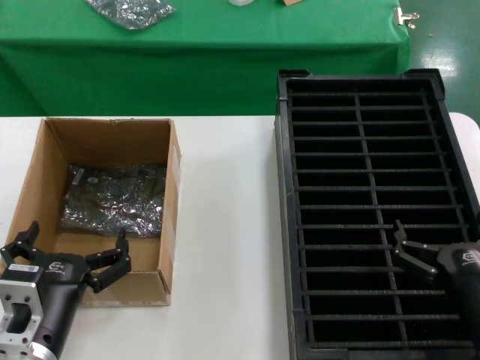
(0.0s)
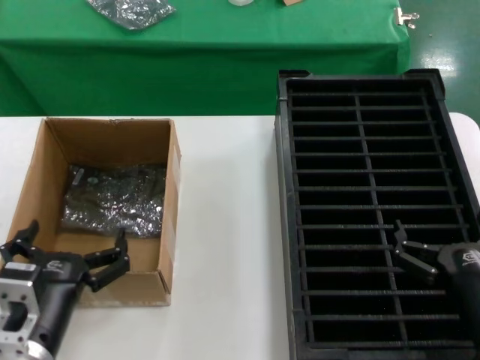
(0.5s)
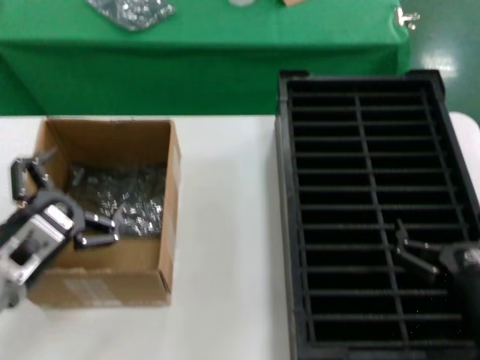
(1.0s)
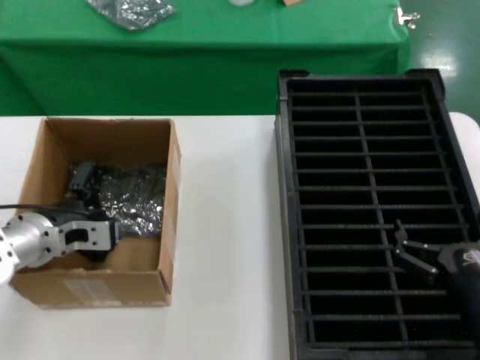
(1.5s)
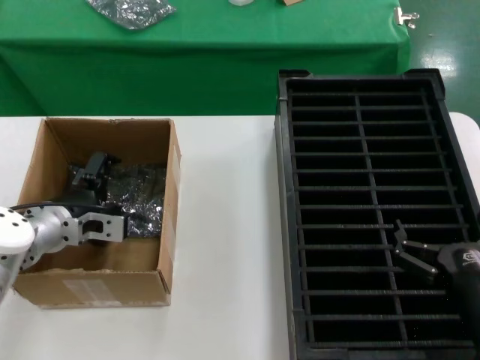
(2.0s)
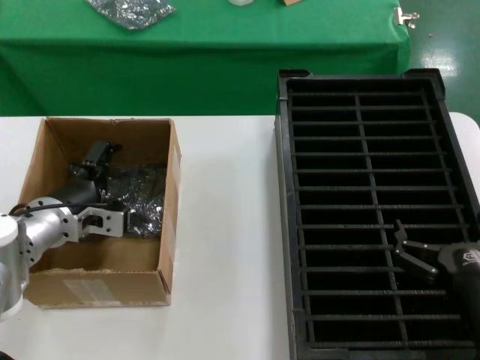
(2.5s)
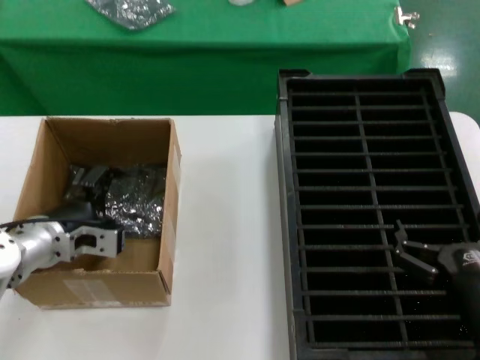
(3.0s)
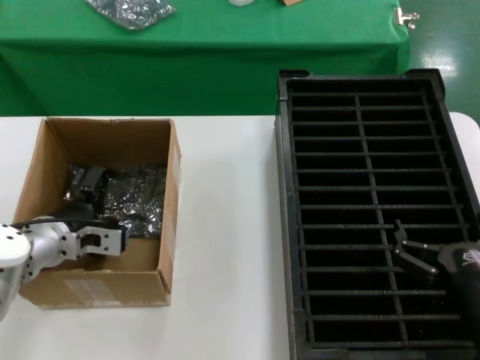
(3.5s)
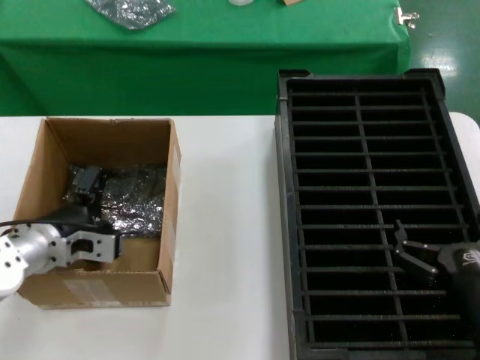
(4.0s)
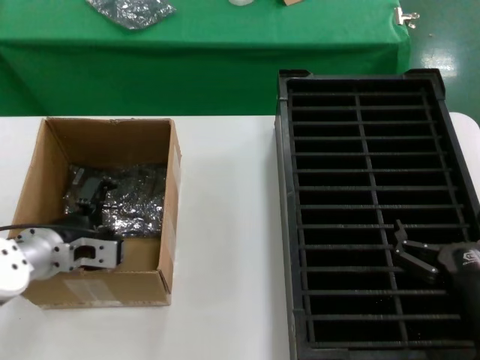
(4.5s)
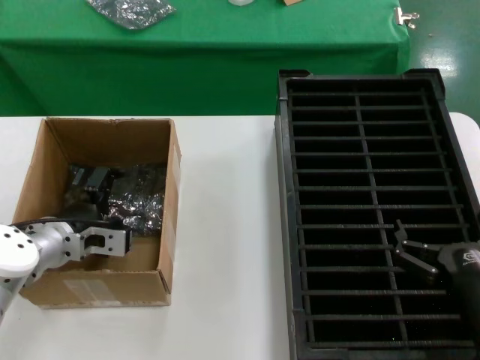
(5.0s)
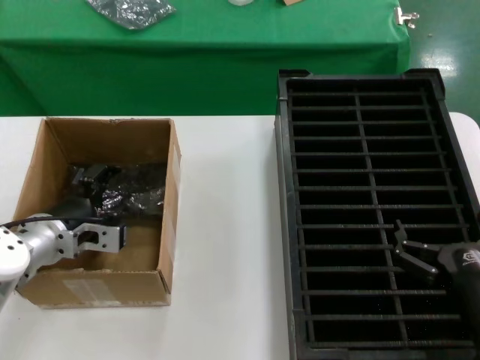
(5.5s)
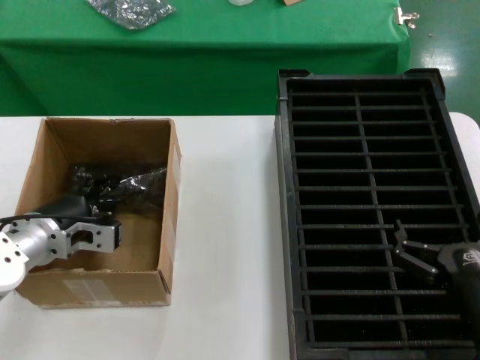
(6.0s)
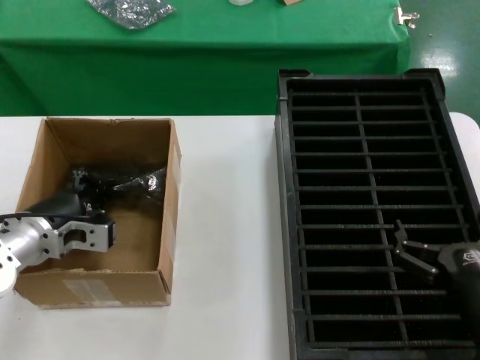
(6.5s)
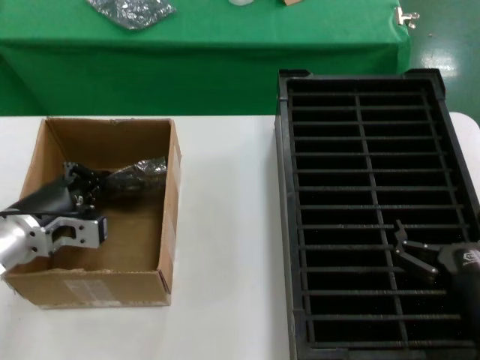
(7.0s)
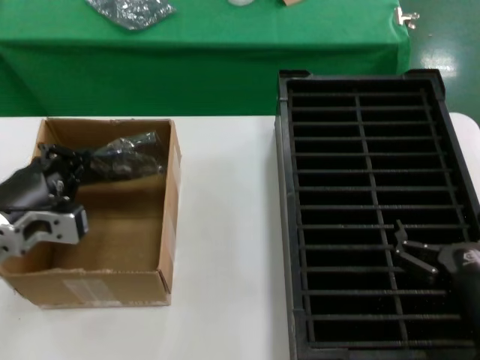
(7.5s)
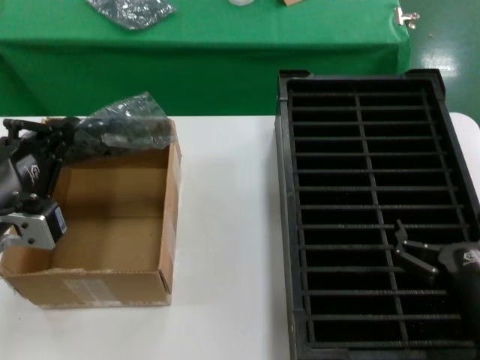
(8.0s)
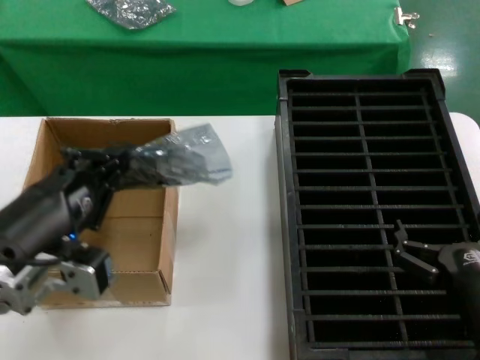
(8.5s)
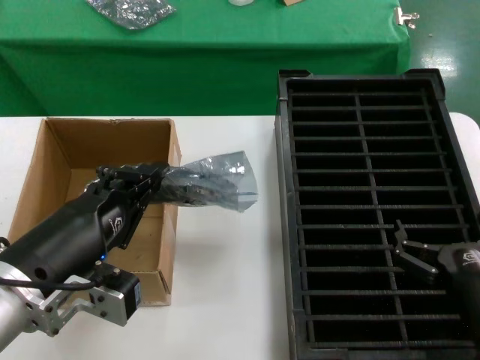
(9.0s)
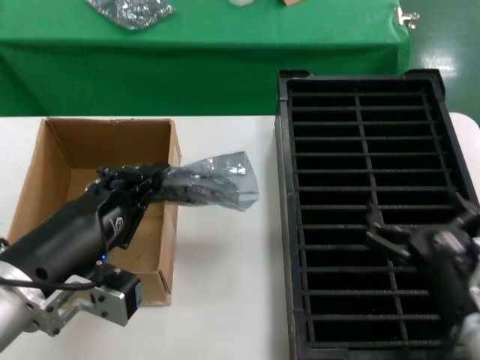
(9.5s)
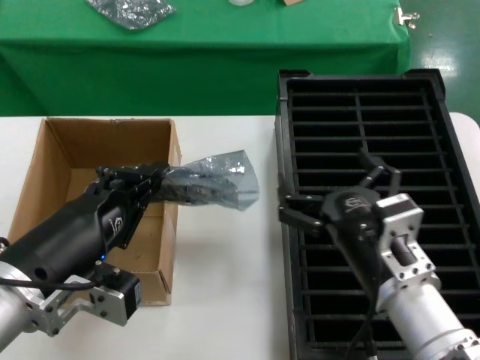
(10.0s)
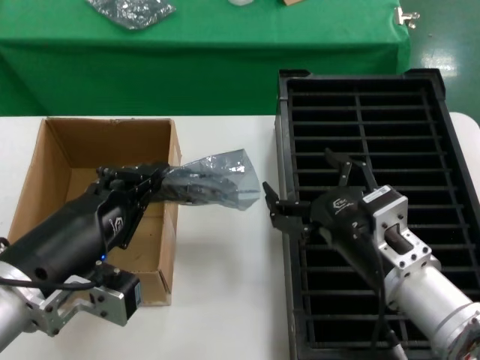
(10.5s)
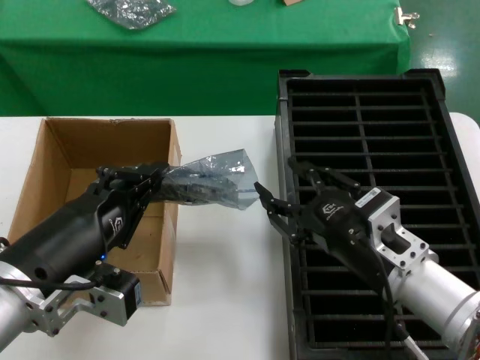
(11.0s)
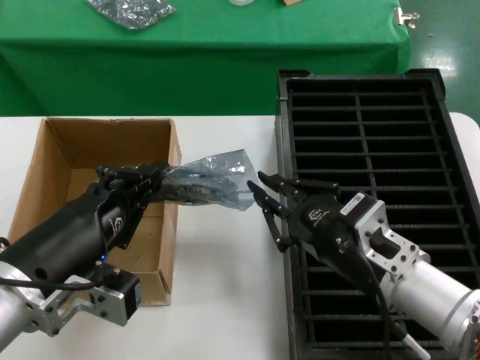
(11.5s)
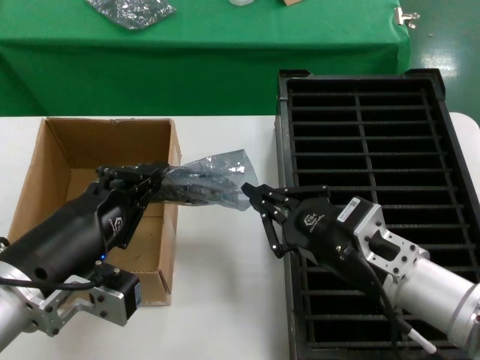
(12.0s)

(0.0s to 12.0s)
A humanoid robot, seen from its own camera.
Task of the whole recording: take out graphics card from box remove packaging put into black container.
Step, 0.0s - 6.0s: Grasp the bag.
Step, 7.0s - 9.0s: Lift the bag.
0.0s - 2.0s: The left hand heads forward, covering roughly 20 cm.
2.0s - 6.0s: There are only small adjustments of the hands.
6.0s - 8.0s: The left hand is displaced backward and upward by some 20 cm.
8.0s - 10.0s: The left hand is displaced to the right and backward by about 10 cm. The right hand travels to the left and upward by roughly 10 cm.

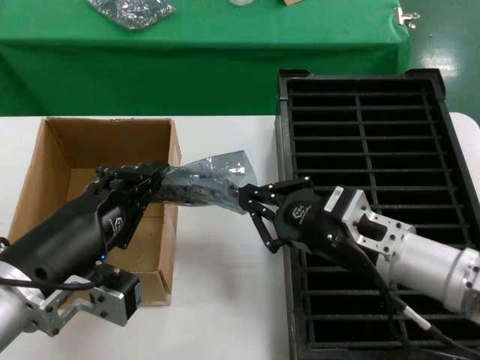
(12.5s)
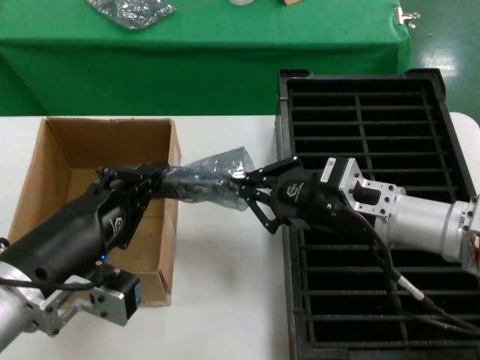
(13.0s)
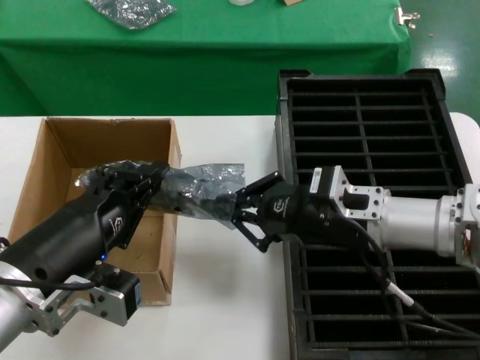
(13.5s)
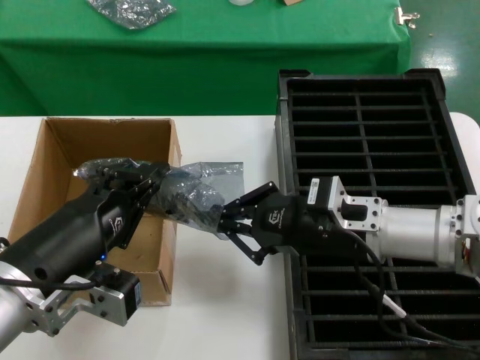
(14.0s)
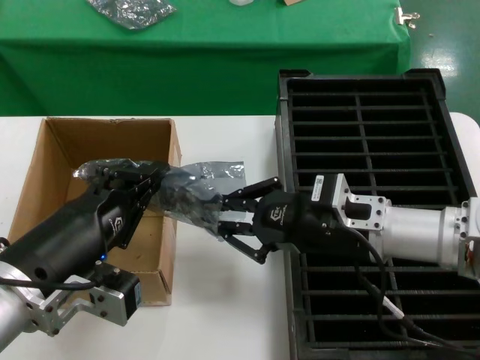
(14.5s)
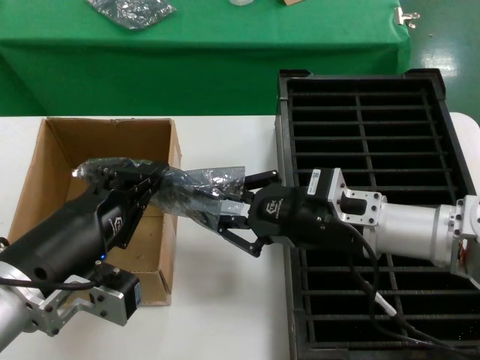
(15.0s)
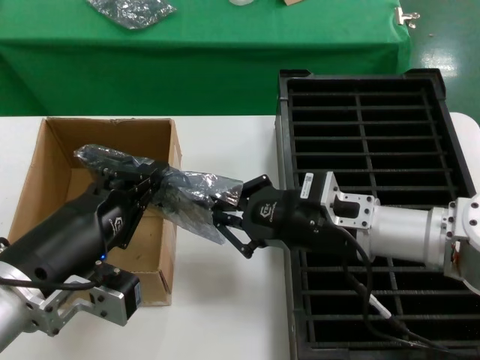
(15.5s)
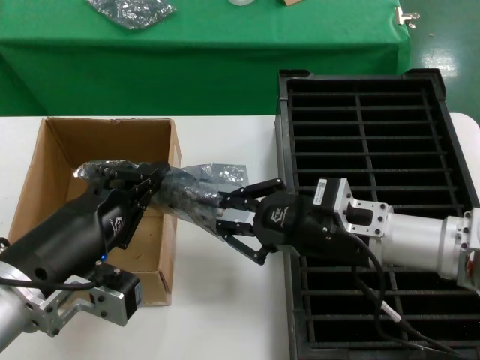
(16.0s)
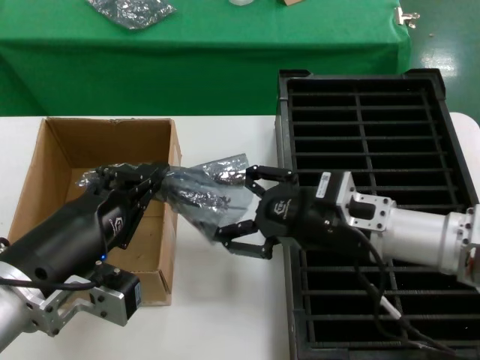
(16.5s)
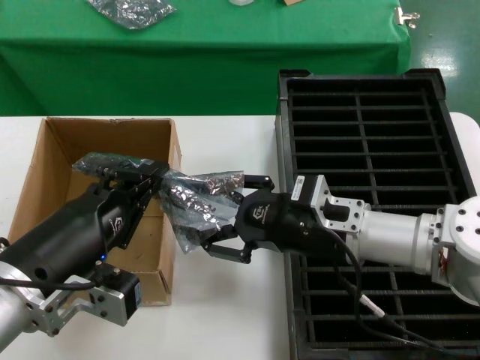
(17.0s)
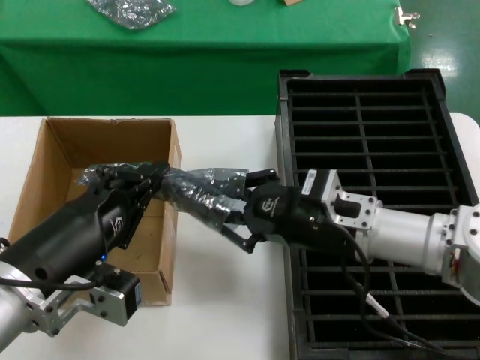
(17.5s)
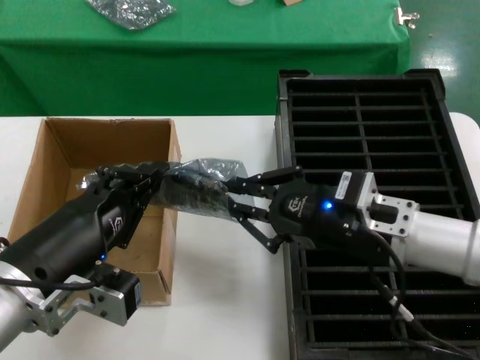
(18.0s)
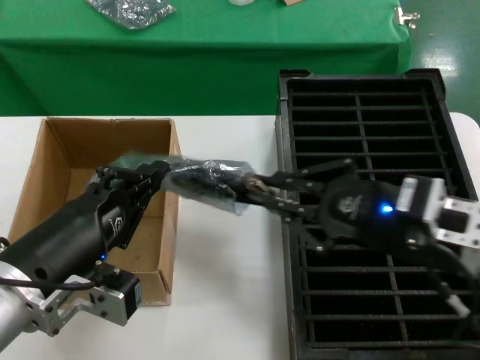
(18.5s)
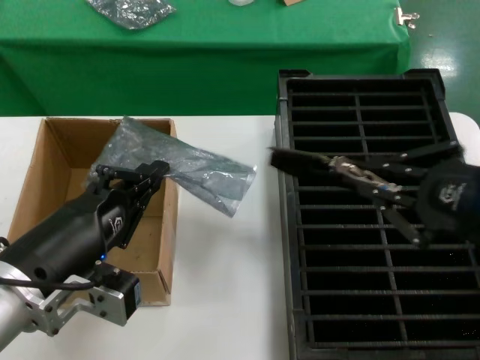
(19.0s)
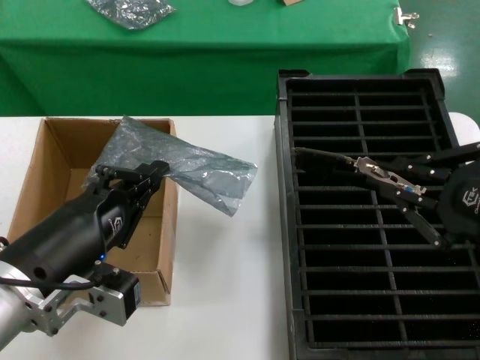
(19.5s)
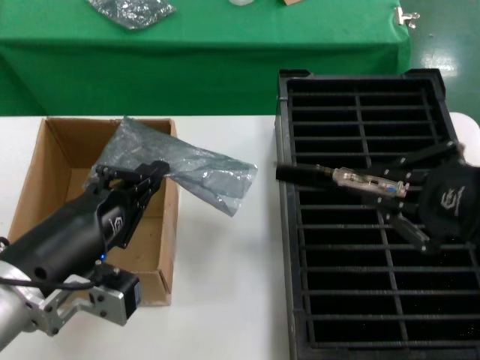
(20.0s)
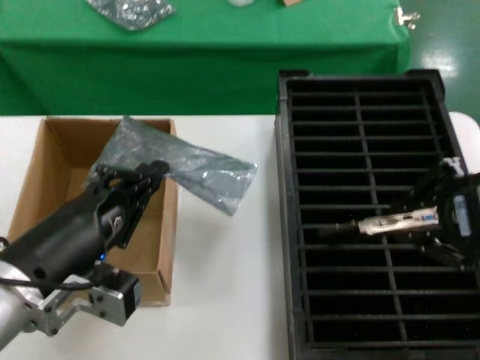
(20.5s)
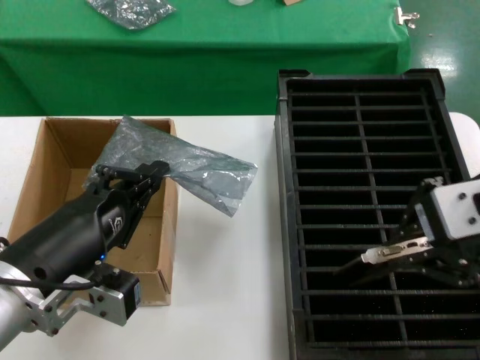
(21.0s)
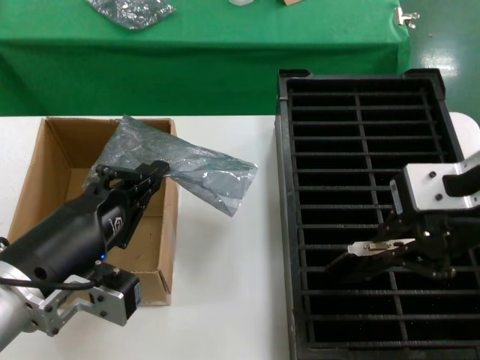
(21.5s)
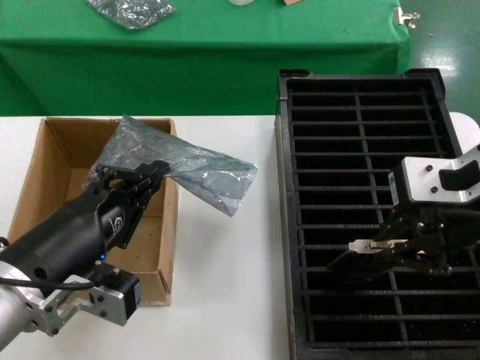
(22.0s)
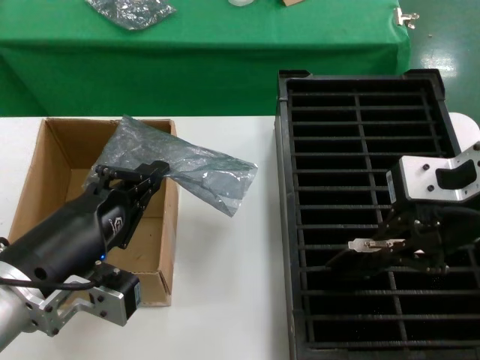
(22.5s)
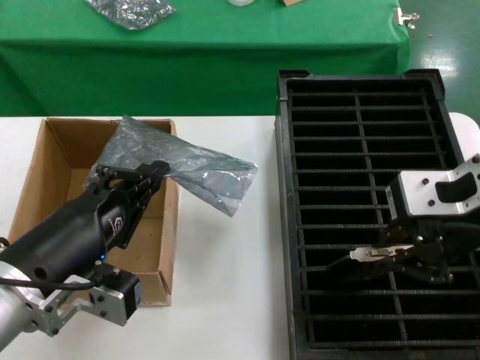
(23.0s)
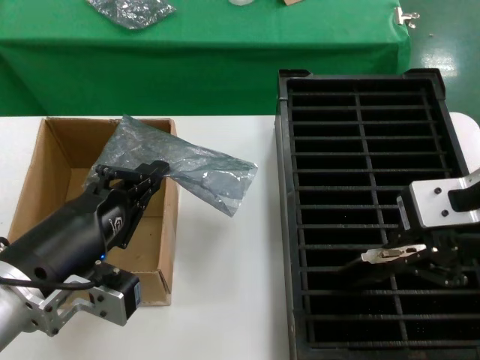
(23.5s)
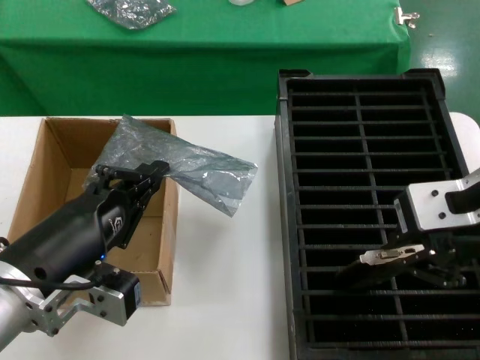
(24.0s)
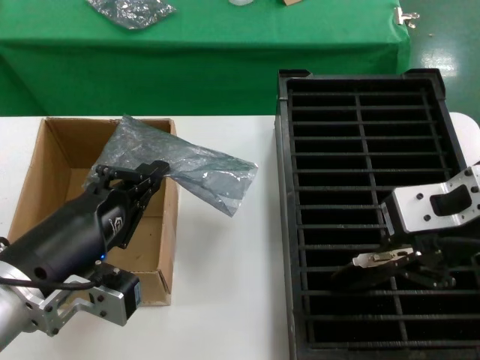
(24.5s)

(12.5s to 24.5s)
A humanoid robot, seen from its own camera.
Task of the whole recording: take out graphics card from box remove packaging put into black container.
Step, 12.5s - 18.5s: Take out the hard disk of the bag.
12.5s - 14.5s: The right hand changes place by roughly 5 cm.
14.5s - 16.5s: Both hands stay put.
16.5s - 18.5s: The right hand goes some 10 cm backward and to the right.
18.5s - 20.5s: The right hand heads upward and backward, covering some 15 cm.
20.5s - 22.5s: The right hand travels forward by some 5 cm.
22.5s - 24.5s: The hands move only a little.

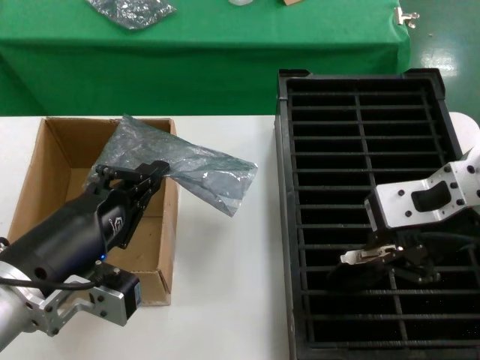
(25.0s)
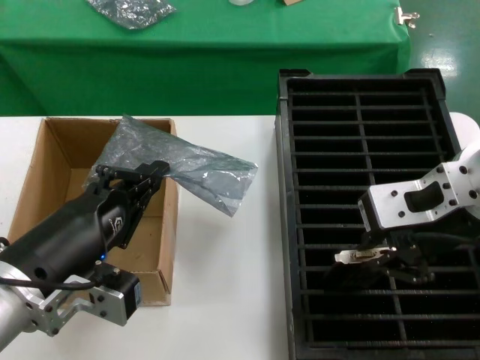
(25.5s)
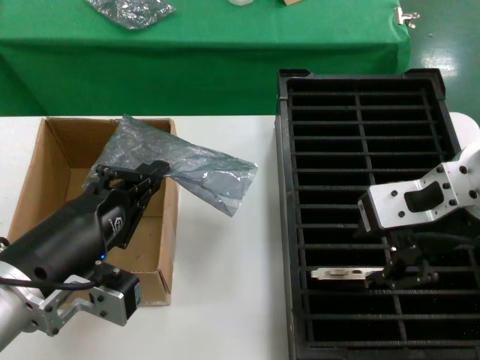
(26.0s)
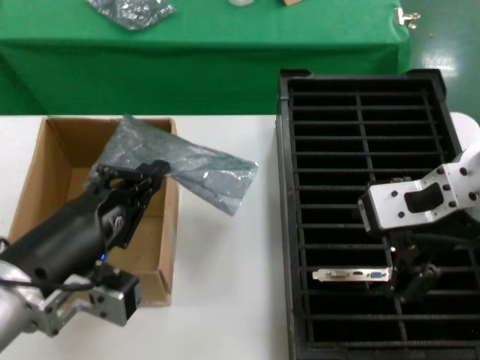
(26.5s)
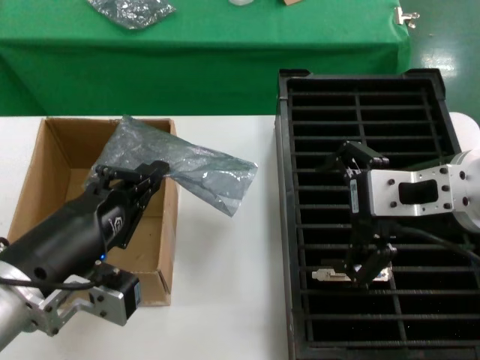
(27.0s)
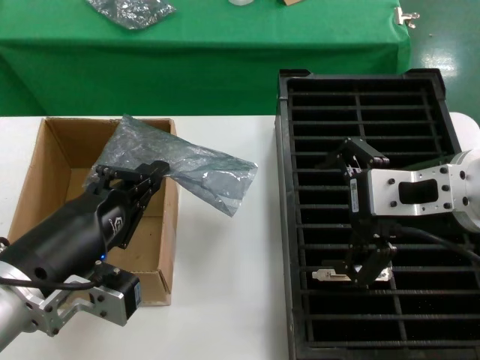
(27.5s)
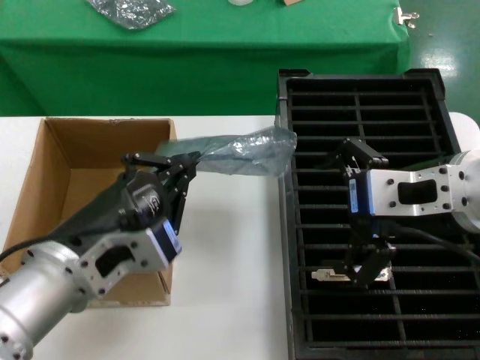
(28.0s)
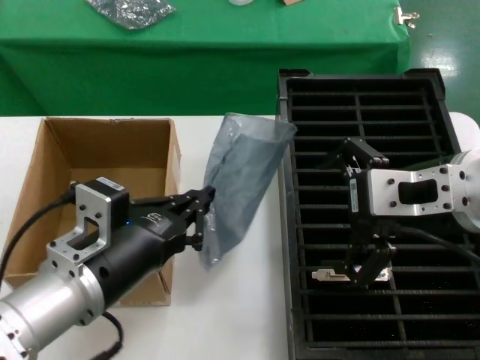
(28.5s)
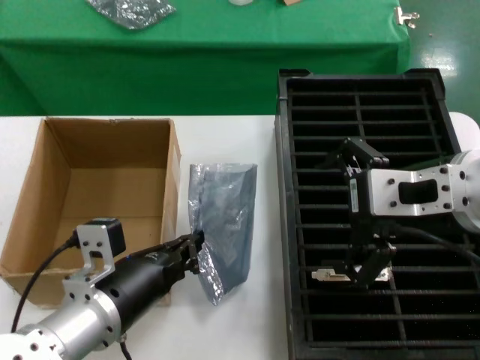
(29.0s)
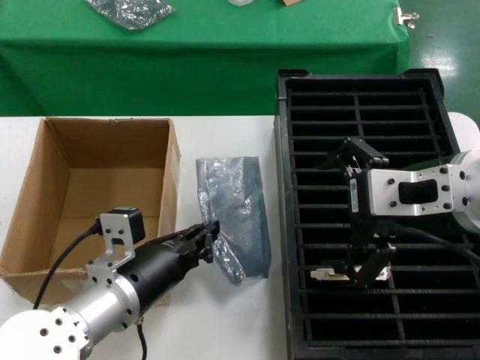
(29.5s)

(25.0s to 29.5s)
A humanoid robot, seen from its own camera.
Task of the whole recording: take out graphics card from box remove packaging put into black container.
25.0s - 27.0s: The hands stay close to where they were, moving slightly.
27.0s - 29.5s: The left hand moves forward and downward, some 10 cm.
